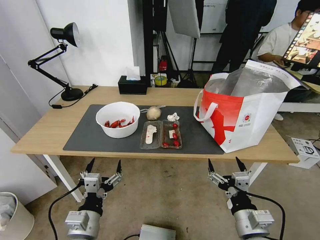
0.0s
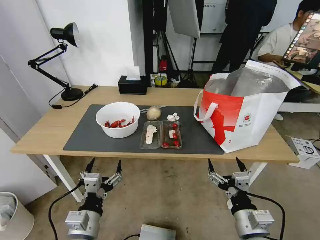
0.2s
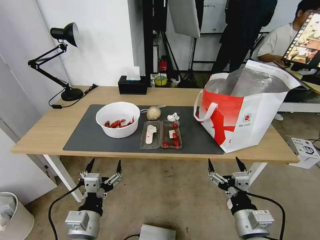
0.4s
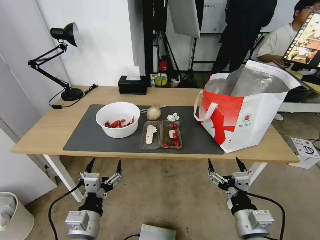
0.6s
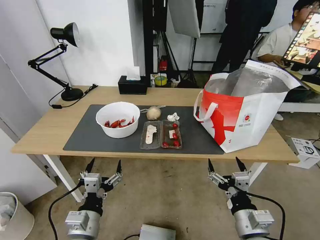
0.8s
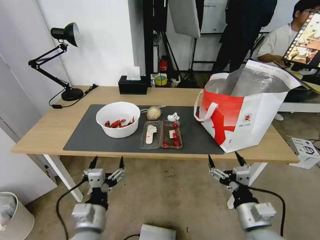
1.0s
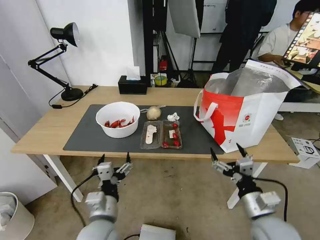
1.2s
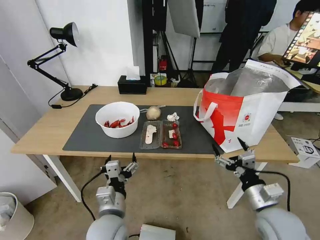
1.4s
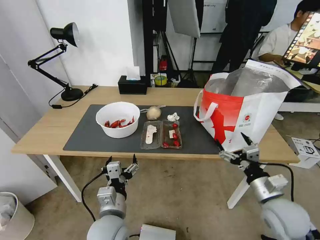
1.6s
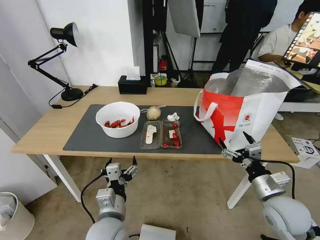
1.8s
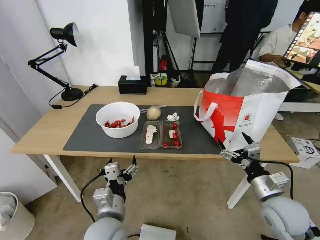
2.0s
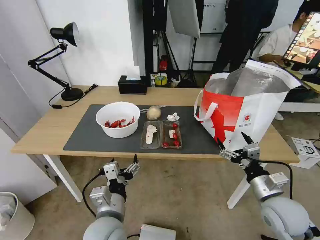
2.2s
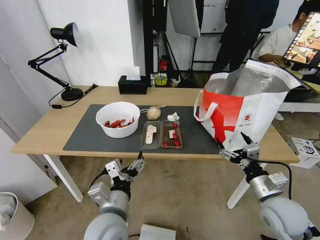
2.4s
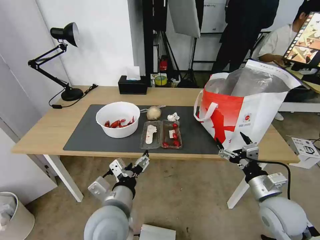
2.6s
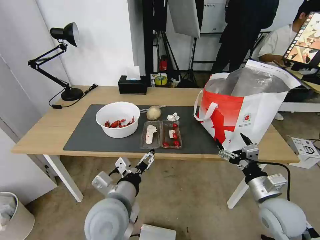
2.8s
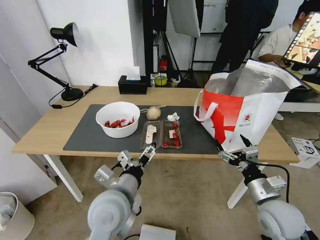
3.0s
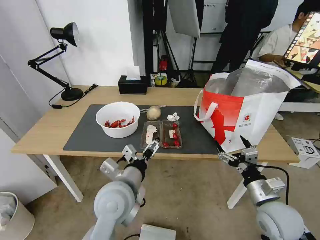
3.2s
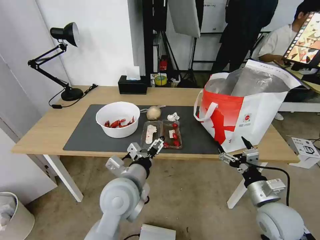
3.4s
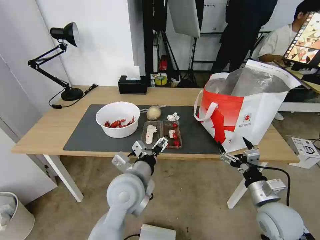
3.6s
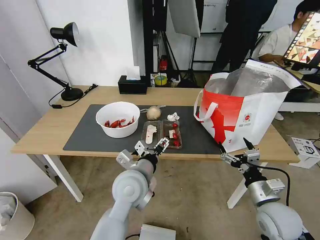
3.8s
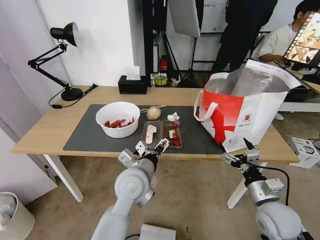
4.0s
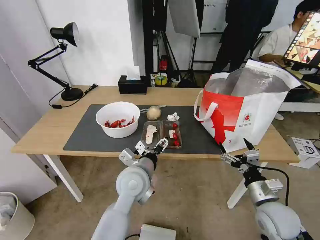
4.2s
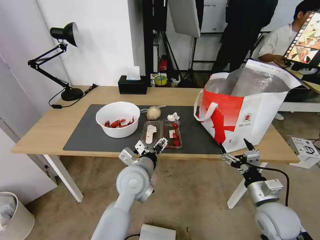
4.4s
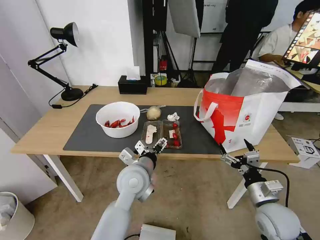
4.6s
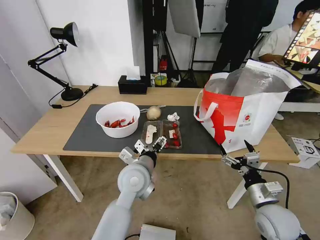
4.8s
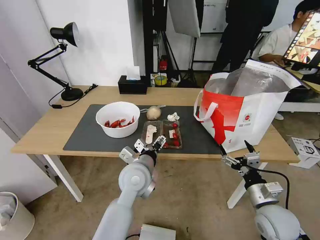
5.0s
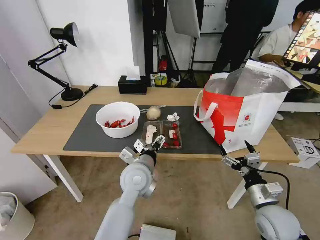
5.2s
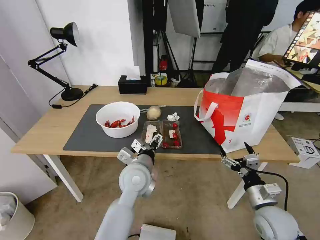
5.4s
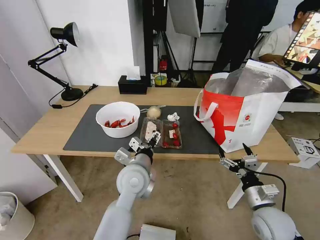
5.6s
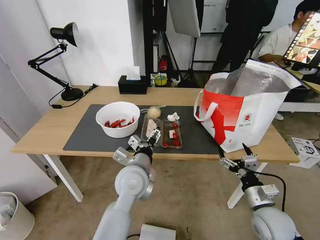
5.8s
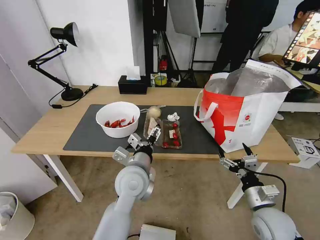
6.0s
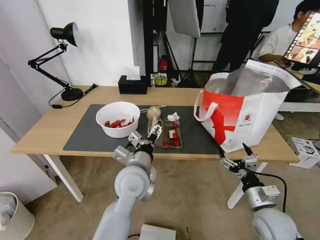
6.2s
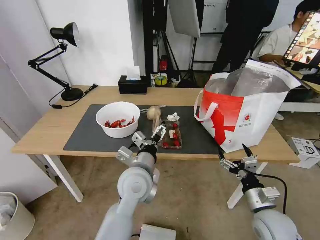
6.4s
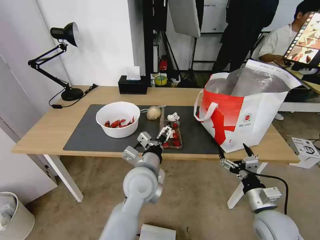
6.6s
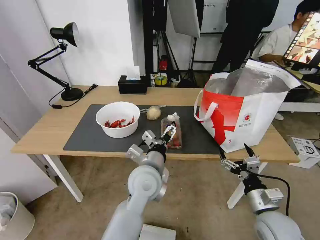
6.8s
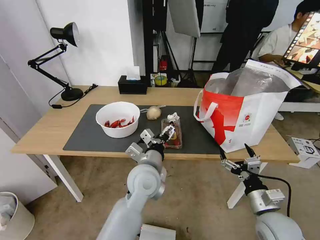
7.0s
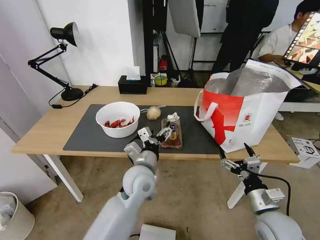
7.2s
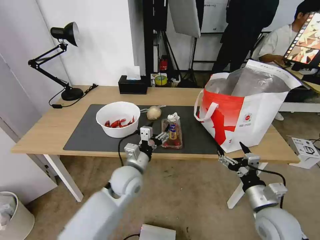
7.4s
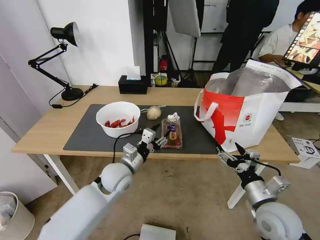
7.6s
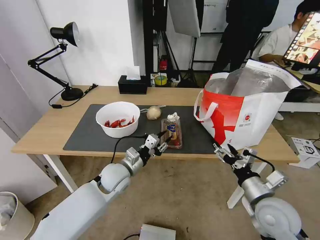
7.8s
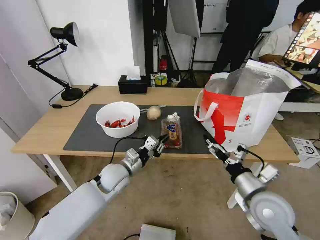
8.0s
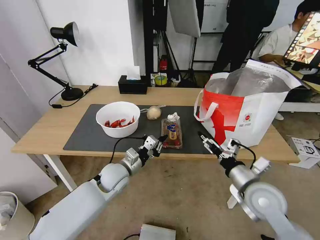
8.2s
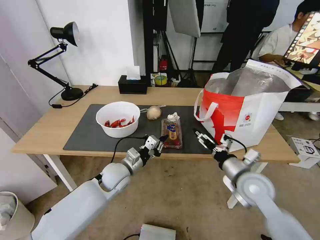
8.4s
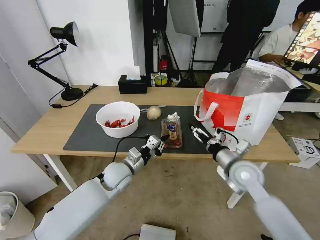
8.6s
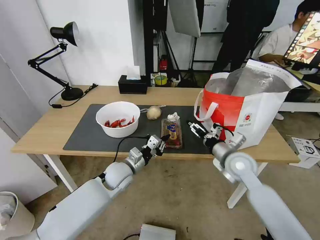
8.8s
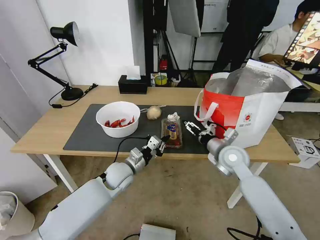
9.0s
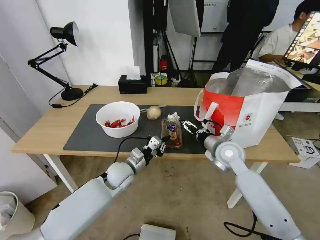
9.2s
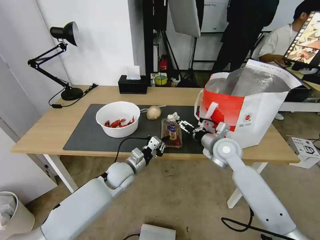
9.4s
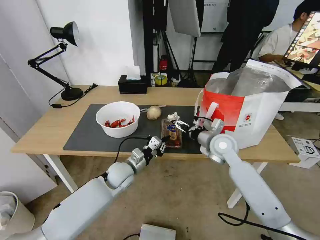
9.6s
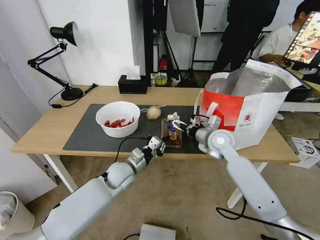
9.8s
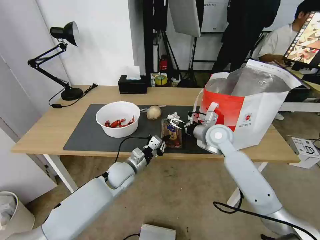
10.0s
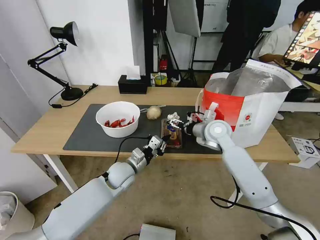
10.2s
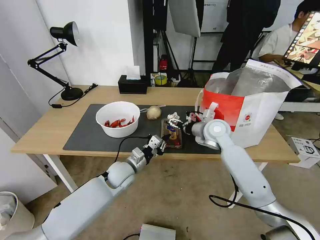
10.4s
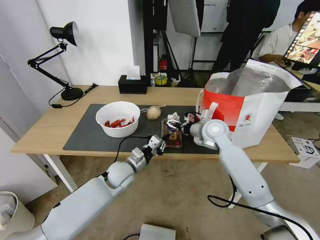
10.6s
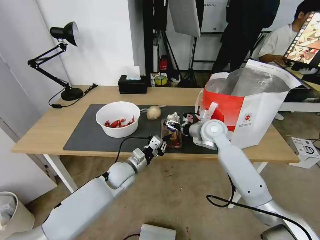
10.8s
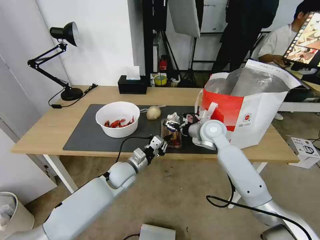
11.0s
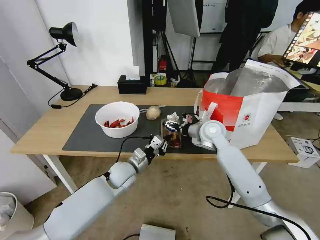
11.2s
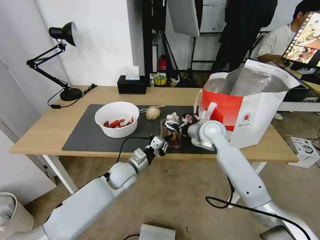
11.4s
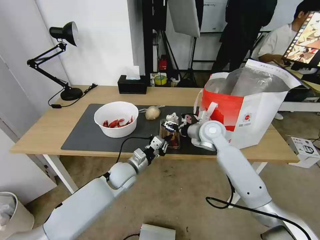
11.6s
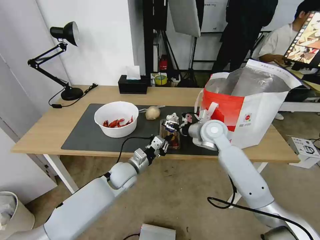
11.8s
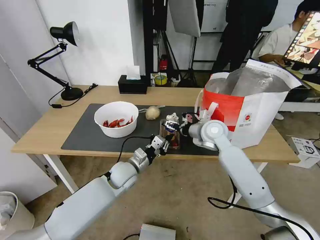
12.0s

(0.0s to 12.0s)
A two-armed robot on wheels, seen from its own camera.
Task of the whole recording: Pick up the trash from the table and place it into the takeout bag.
1.6s - 3.0s: The left gripper moves upward, some 10 cm.
3.0s - 4.4s: The left gripper travels forward by about 10 cm.
4.4s - 6.0s: The grippers move only a little.
6.0s - 7.6s: The left gripper moves to the left and downward, some 10 cm, and closes.
7.6s - 9.0s: The right gripper is displaced forward by some 20 cm; the left gripper changes place by about 5 cm, and closes up.
9.0s - 10.4s: The right gripper is displaced forward by approximately 10 cm.
10.4s - 12.0s: The grippers stay close to where they were, moving slightly.

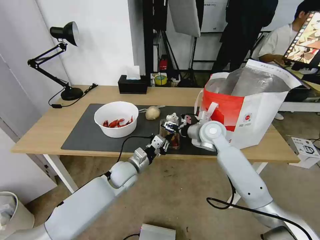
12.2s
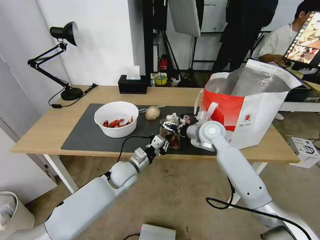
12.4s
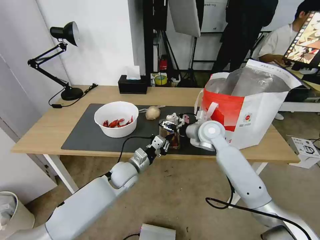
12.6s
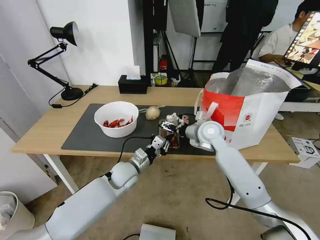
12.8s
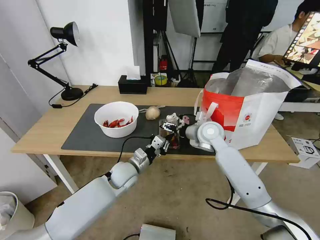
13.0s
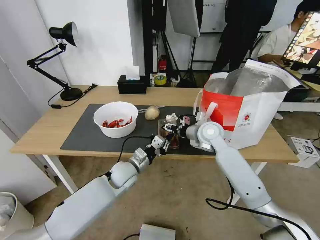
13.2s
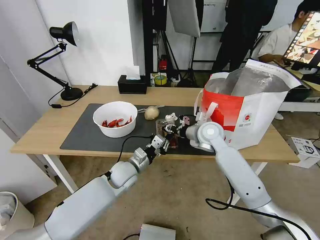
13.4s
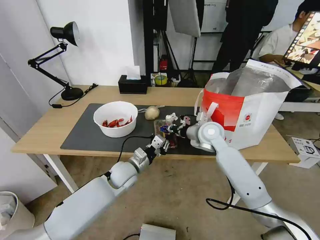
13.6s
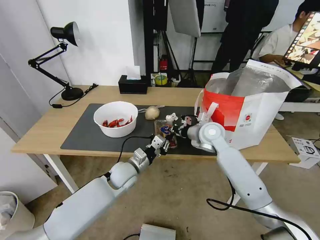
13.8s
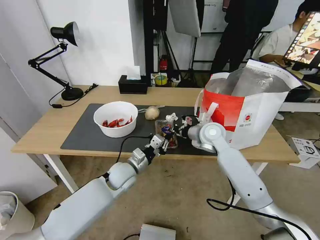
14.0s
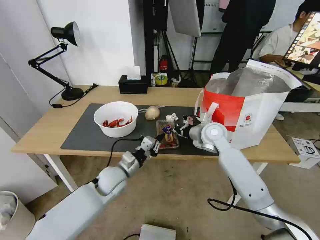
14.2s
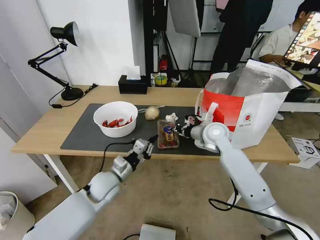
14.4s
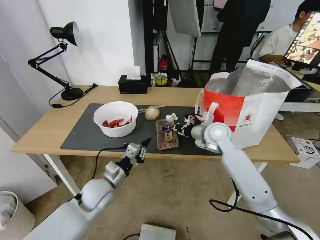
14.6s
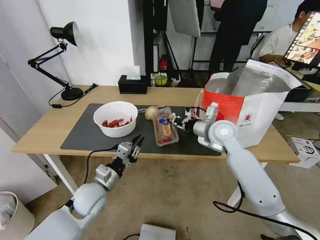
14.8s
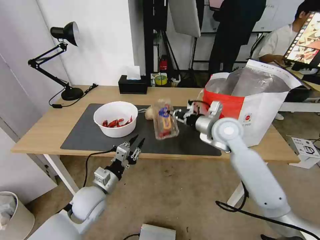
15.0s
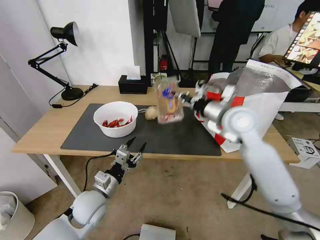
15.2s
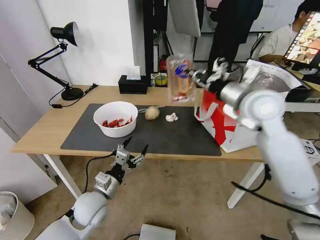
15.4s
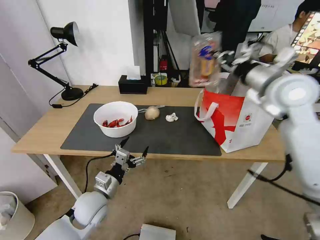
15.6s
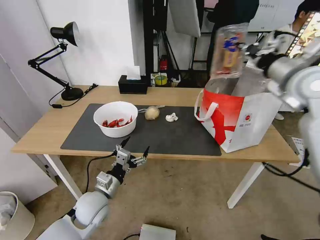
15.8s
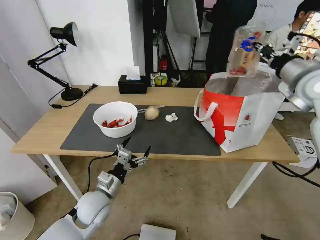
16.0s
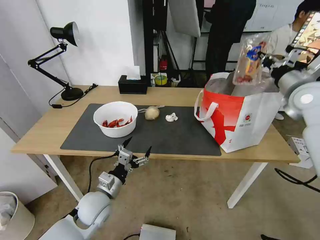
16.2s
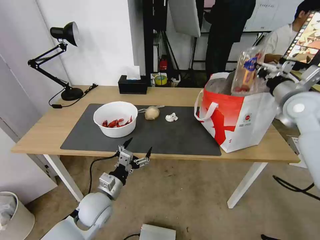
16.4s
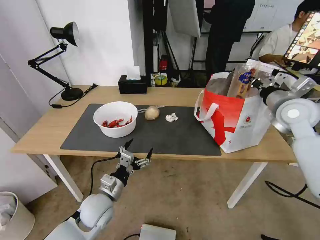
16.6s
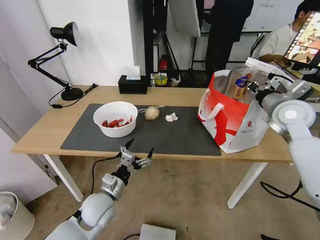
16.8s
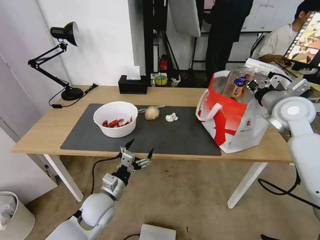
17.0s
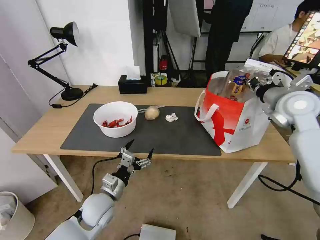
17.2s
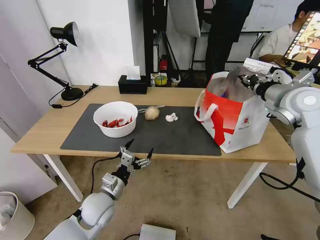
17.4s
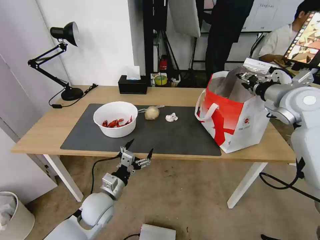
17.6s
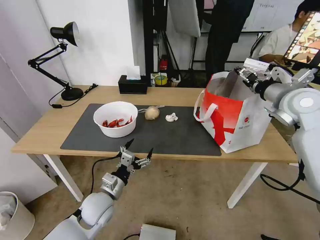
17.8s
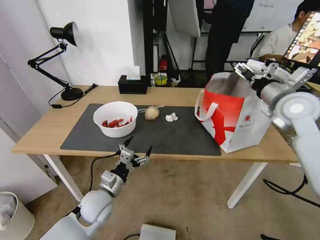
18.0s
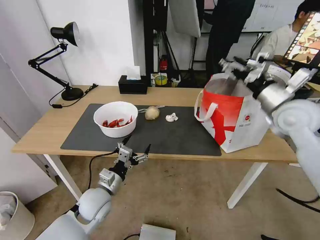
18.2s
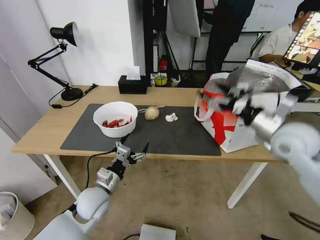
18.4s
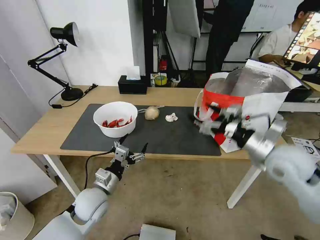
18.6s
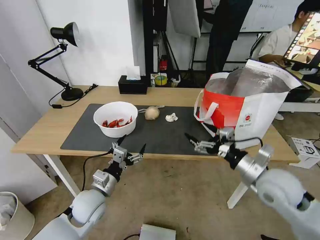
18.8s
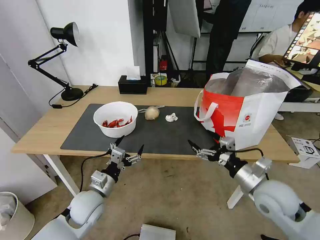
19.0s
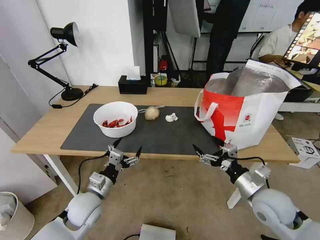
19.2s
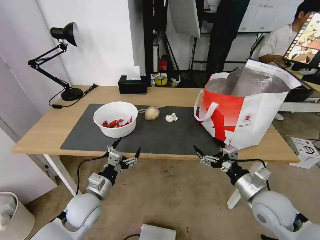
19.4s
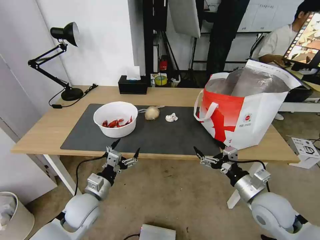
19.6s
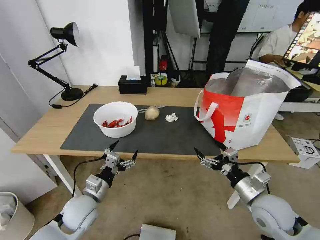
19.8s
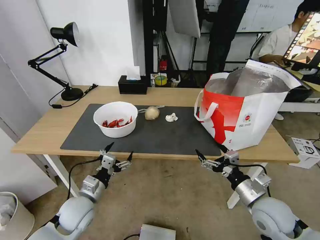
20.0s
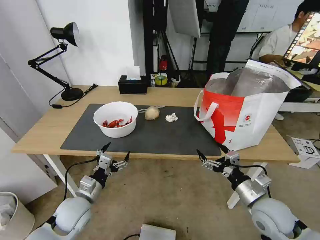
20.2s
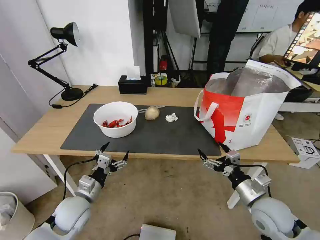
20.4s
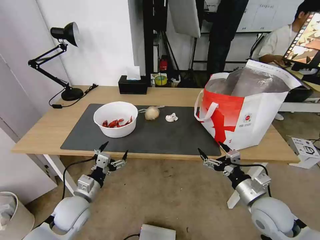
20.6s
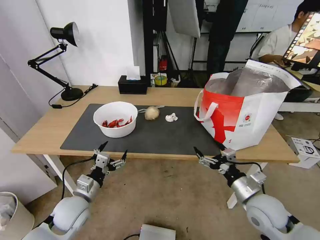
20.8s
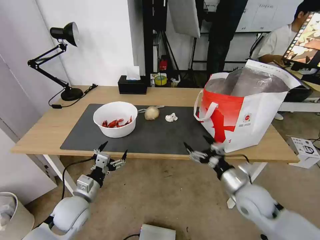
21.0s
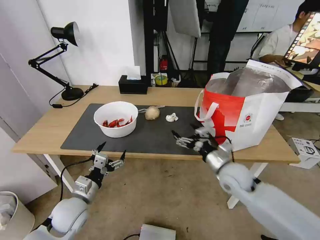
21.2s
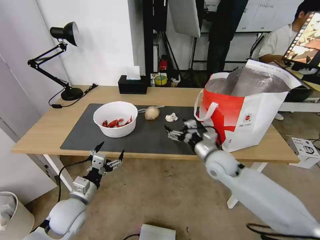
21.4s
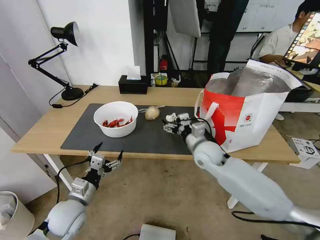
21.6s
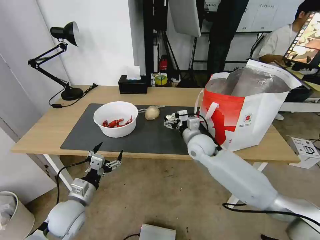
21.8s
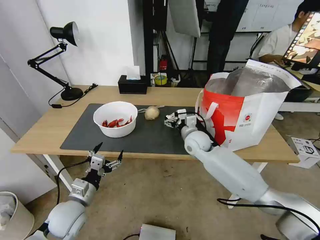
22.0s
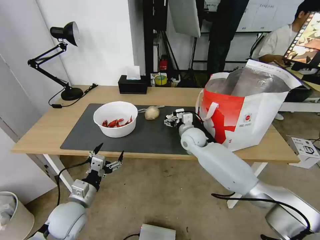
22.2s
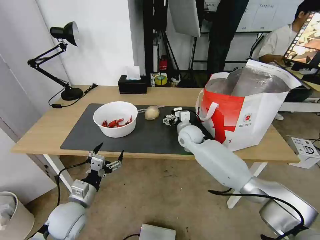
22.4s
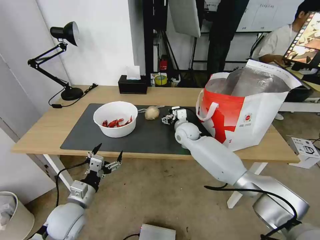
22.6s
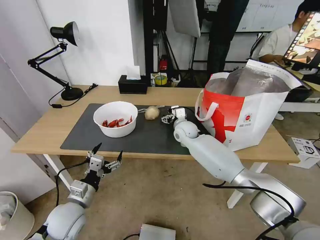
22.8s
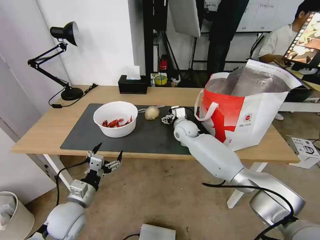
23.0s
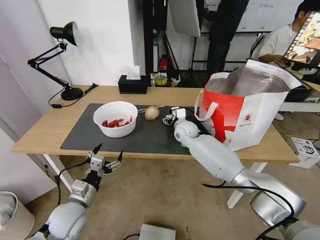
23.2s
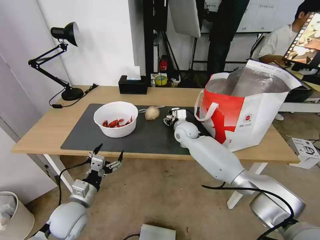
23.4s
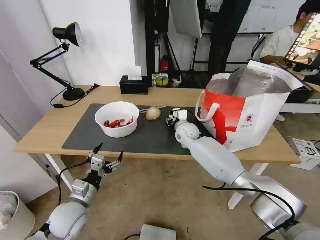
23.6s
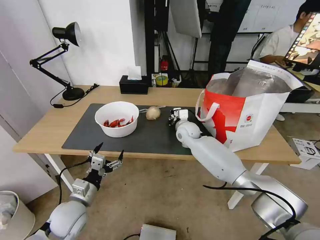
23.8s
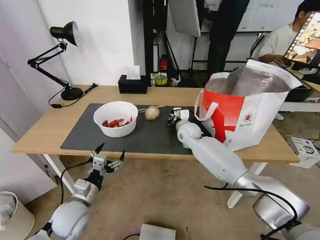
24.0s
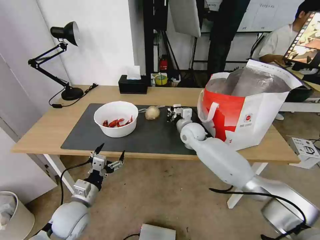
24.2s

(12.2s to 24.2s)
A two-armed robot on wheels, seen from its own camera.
Task of the whole recording: Pick up the trash from the table and place it into the takeout bag.
12.2s - 13.8s: The right gripper closes its fingers.
13.8s - 15.2s: The right gripper shifts approximately 15 cm upward and backward. Meanwhile the left gripper travels backward and to the left by about 15 cm, and opens.
15.2s - 16.6s: The left gripper opens. The right gripper heads to the right, covering roughly 15 cm.
16.6s - 18.2s: The right gripper shifts by approximately 5 cm, and opens.
18.2s - 19.8s: The right gripper travels downward and backward by roughly 25 cm.
19.8s - 21.2s: The right gripper goes approximately 10 cm forward and to the left.
21.2s - 22.6s: The right gripper goes roughly 25 cm forward and to the left.
22.6s - 24.2s: The right gripper closes its fingers.
